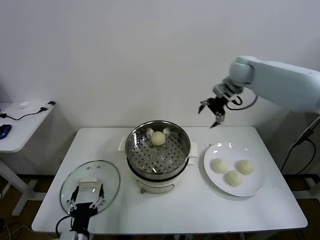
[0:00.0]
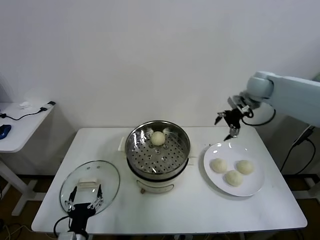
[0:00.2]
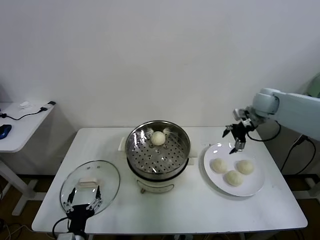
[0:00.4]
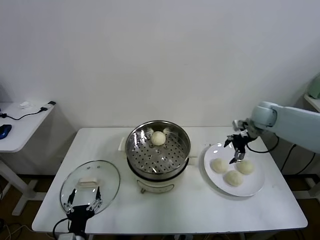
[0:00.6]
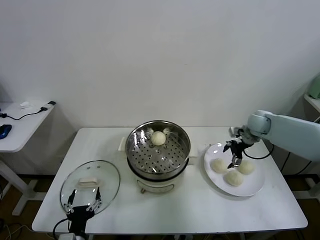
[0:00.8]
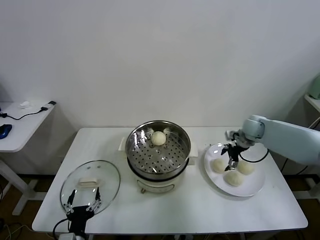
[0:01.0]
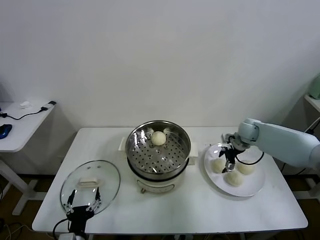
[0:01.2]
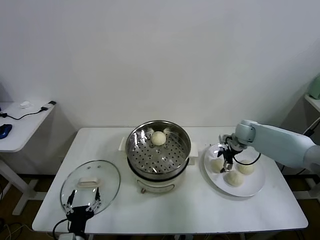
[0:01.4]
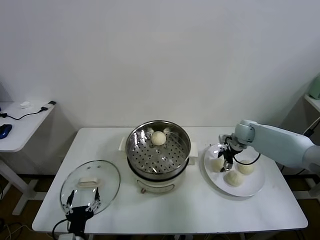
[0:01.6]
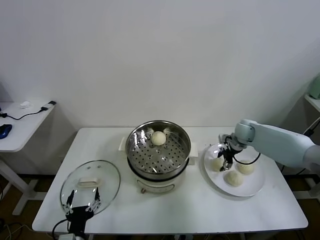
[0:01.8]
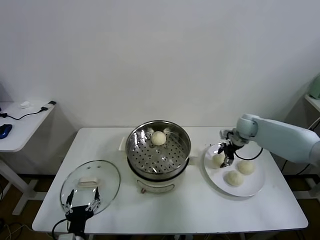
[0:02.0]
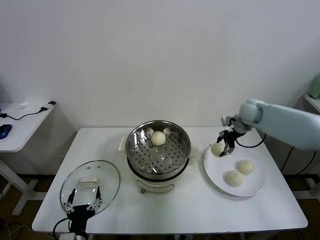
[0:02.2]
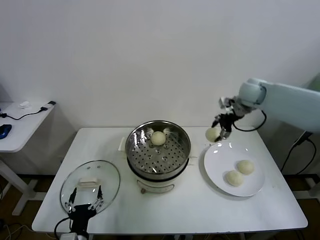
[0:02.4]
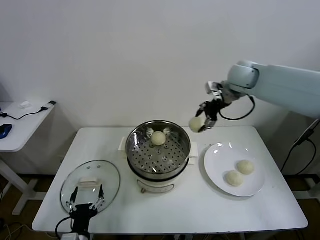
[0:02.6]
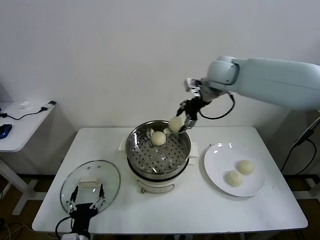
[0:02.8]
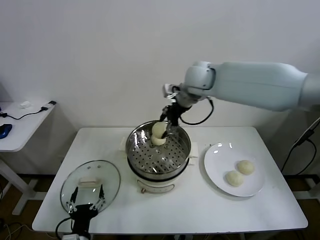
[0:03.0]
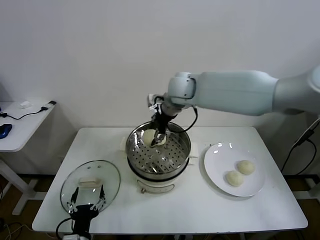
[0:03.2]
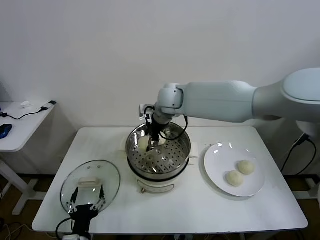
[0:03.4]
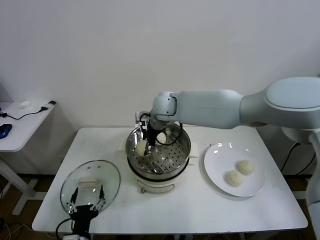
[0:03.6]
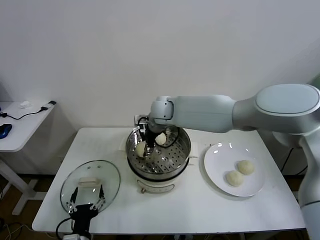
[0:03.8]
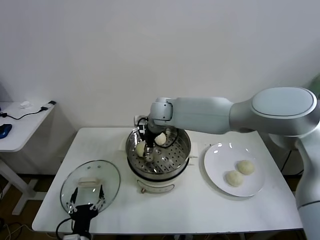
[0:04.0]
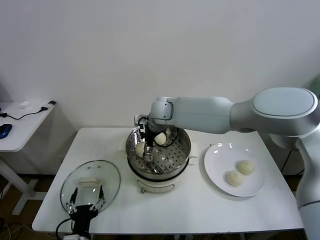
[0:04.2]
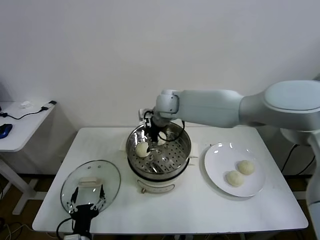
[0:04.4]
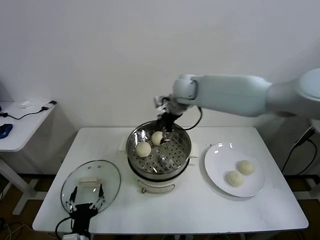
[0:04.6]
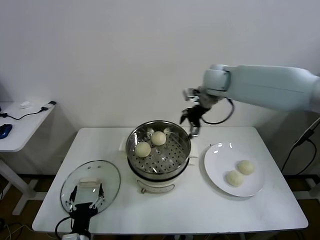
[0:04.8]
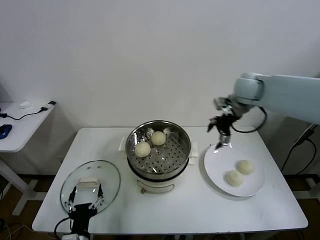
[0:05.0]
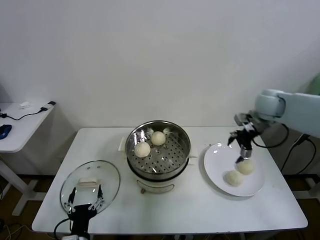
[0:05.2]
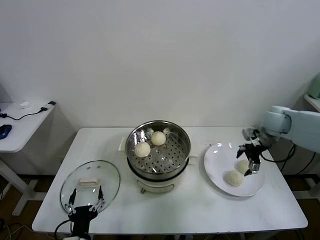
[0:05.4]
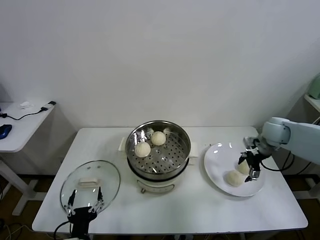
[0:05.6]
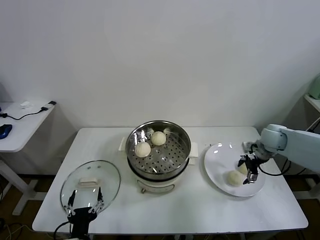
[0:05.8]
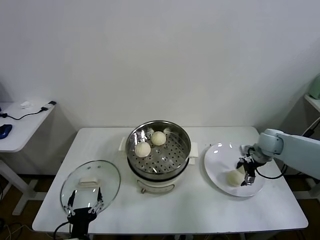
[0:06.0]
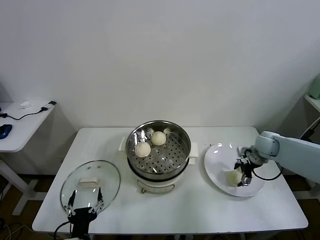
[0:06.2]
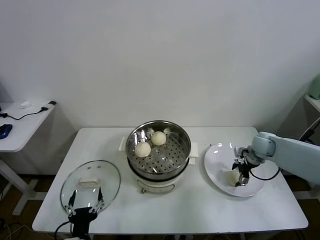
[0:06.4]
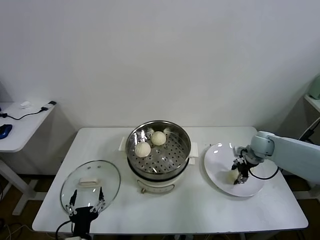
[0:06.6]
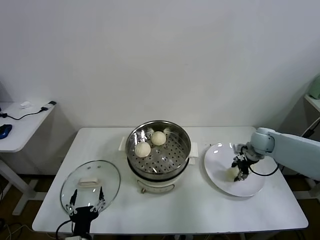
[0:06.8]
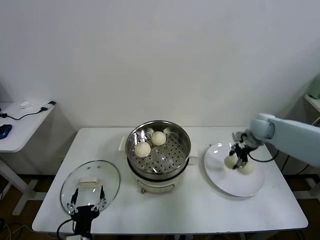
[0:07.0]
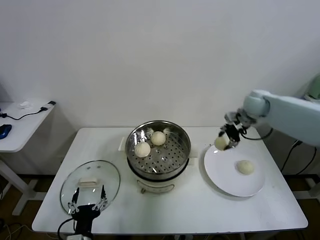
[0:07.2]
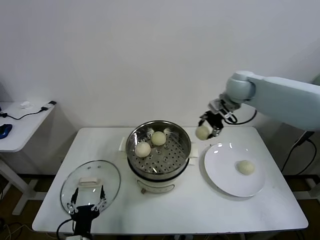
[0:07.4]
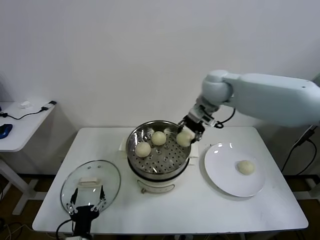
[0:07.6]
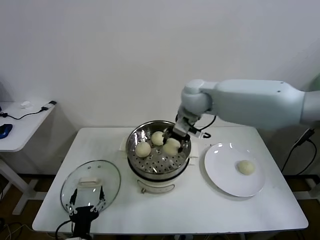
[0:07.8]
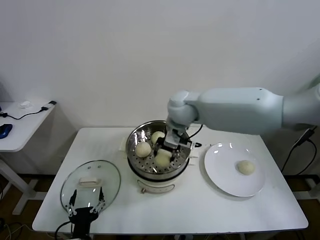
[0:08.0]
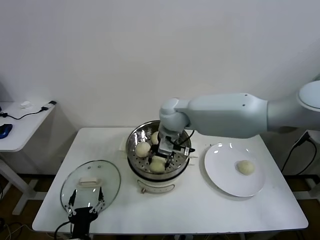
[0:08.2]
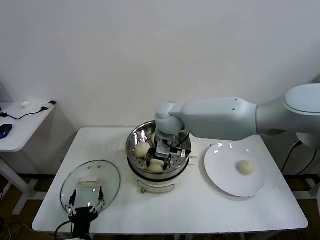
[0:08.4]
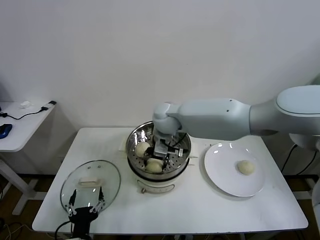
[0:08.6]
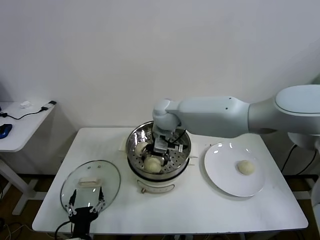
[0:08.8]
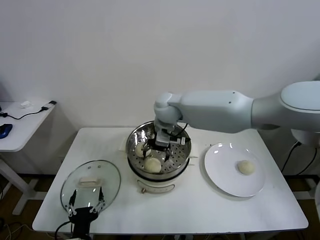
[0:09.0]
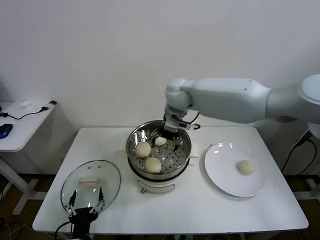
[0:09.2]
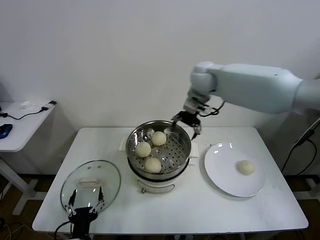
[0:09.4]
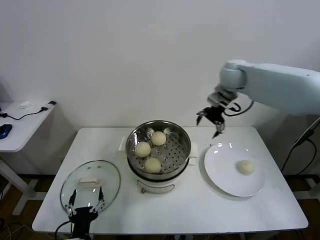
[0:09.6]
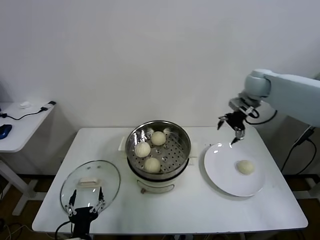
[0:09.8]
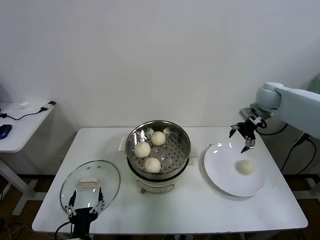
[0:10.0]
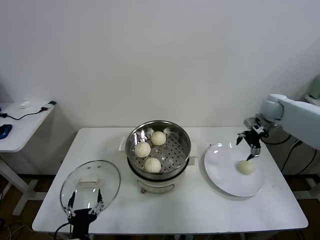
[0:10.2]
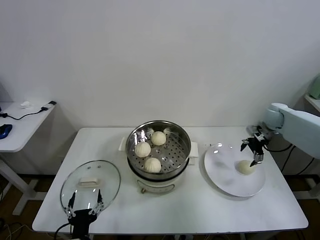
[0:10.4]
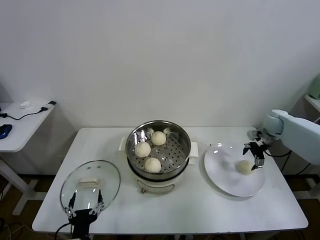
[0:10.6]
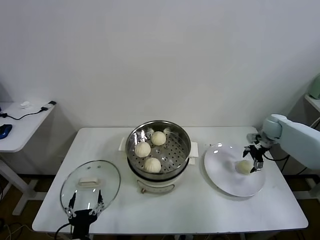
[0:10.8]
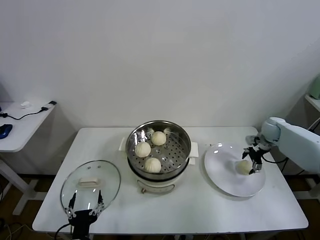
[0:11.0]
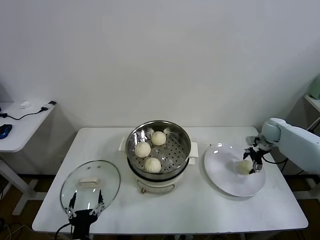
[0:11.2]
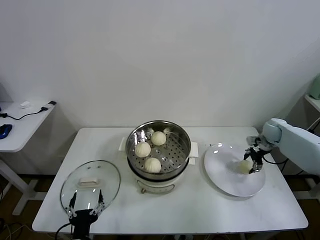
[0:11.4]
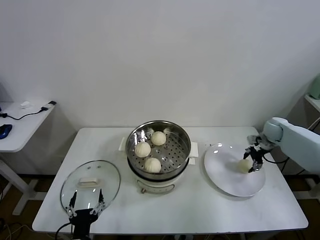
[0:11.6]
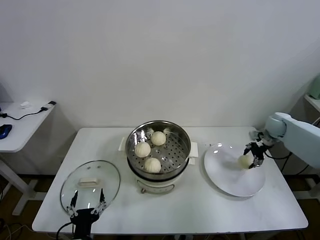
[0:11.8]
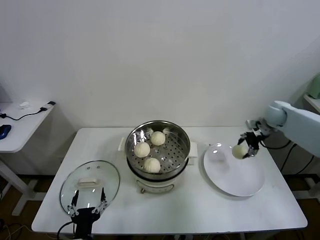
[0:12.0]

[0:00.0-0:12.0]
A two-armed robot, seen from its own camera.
Task of the whole recording: take steamed baozi put them in steamer.
Step, 0:00.0 to 0:01.6: Grasp the baozi in the plate with right gripper.
Step, 0:01.8 to 0:04.2: Place the baozi on the steamer with right gripper.
Step, 0:04.6 to 0:06.4: Grasp the baozi in the plate with right gripper.
Step, 0:06.8 to 0:08.8: Place the baozi on the steamer with right gripper.
Step, 0:09.0 to 0:11.2: Grasp the baozi in the plate with right gripper.
0:00.0 to 0:01.6: The right gripper travels downward by about 25 cm, and closes up.
0:01.6 to 0:03.0: The right gripper shifts some 35 cm to the left and upward.
0:03.0 to 0:04.4: The right gripper moves downward and to the left, roughly 10 cm, and opens its fingers.
0:04.4 to 0:06.0: The right gripper heads to the right and downward, covering some 40 cm.
0:06.0 to 0:07.6: The right gripper travels to the left and upward by approximately 35 cm, and closes up.
0:07.6 to 0:09.0: The right gripper shifts some 15 cm to the left and downward, and opens.
0:09.0 to 0:10.4: The right gripper travels to the right by about 40 cm.
0:10.4 to 0:12.0: The right gripper reaches approximately 5 cm downward, then returns, and closes.

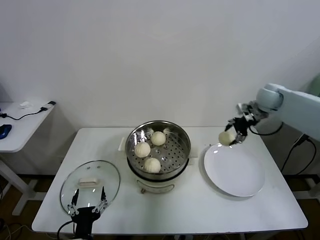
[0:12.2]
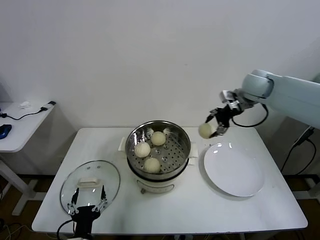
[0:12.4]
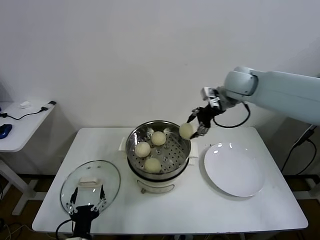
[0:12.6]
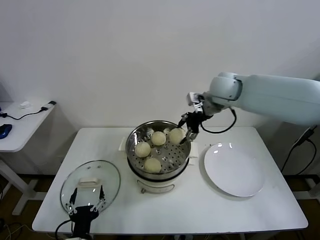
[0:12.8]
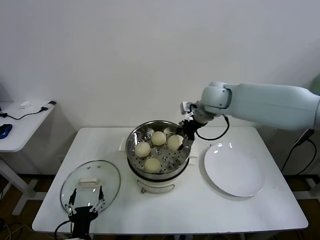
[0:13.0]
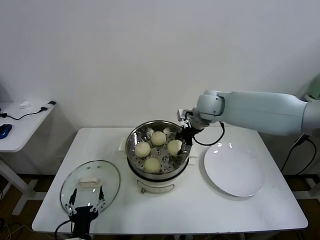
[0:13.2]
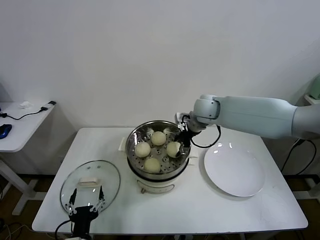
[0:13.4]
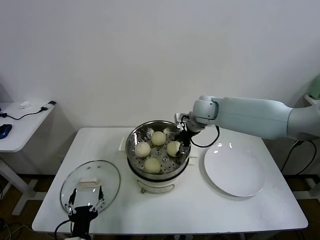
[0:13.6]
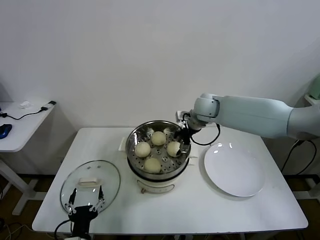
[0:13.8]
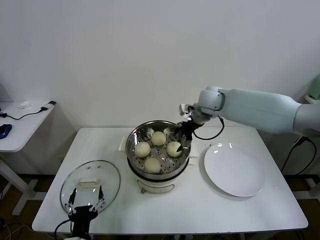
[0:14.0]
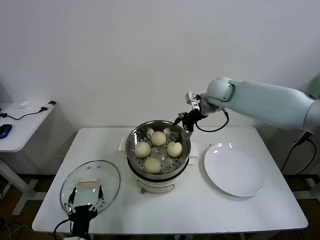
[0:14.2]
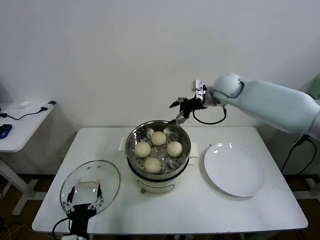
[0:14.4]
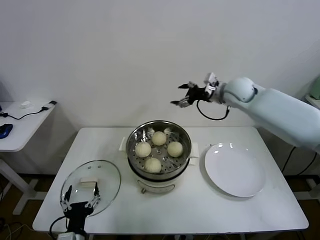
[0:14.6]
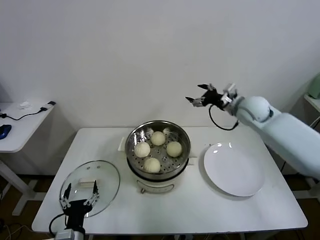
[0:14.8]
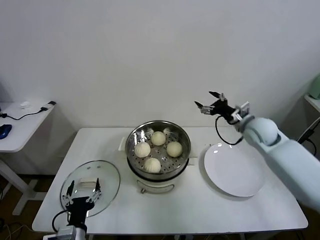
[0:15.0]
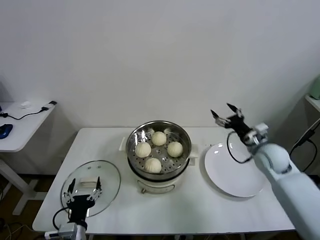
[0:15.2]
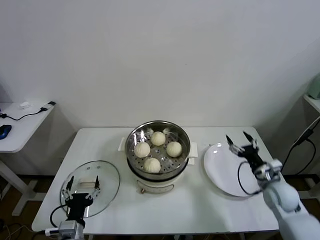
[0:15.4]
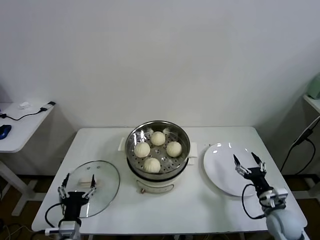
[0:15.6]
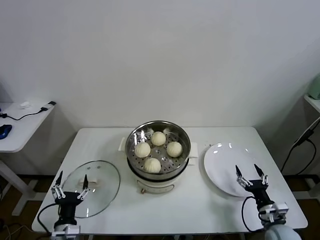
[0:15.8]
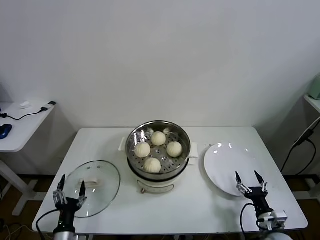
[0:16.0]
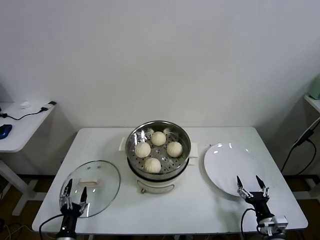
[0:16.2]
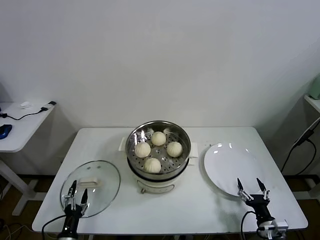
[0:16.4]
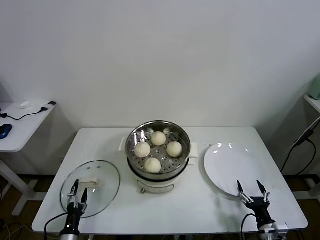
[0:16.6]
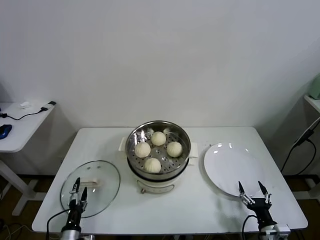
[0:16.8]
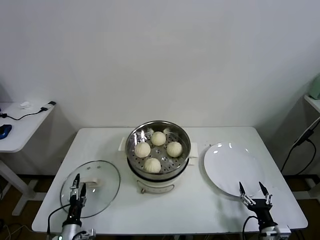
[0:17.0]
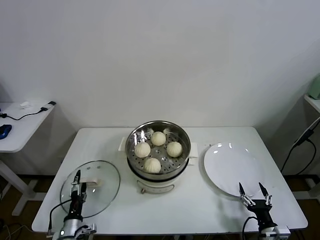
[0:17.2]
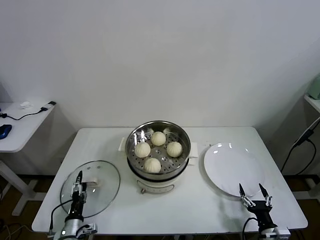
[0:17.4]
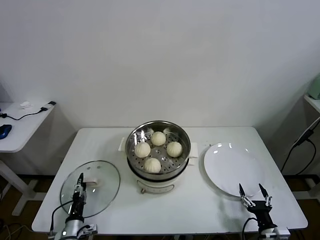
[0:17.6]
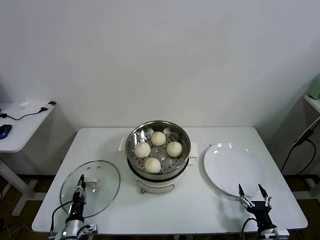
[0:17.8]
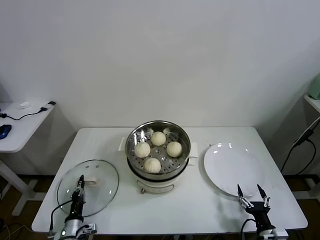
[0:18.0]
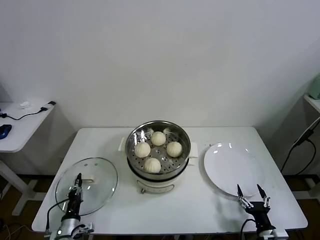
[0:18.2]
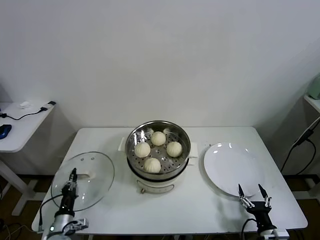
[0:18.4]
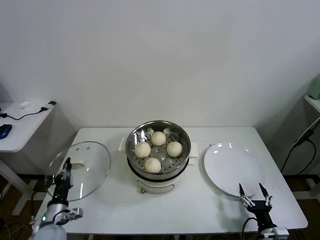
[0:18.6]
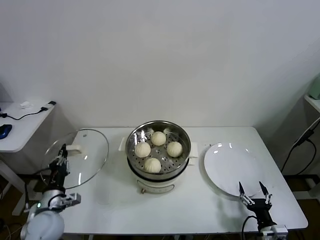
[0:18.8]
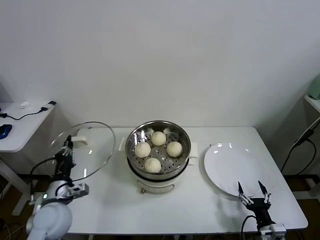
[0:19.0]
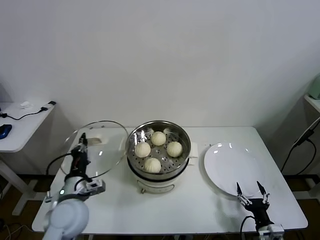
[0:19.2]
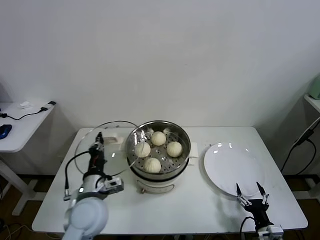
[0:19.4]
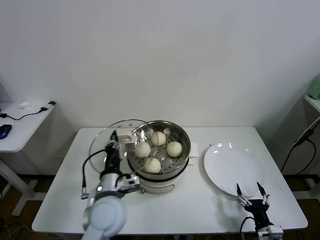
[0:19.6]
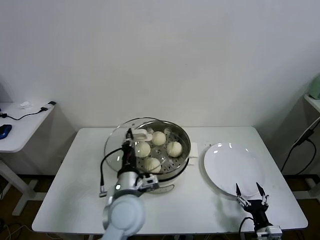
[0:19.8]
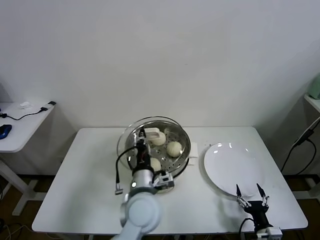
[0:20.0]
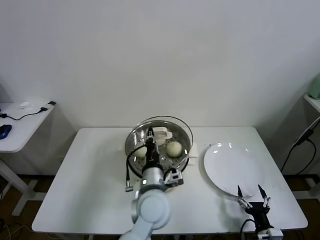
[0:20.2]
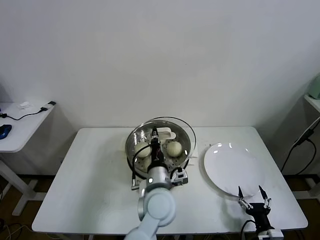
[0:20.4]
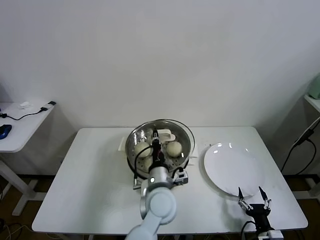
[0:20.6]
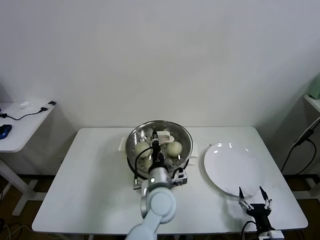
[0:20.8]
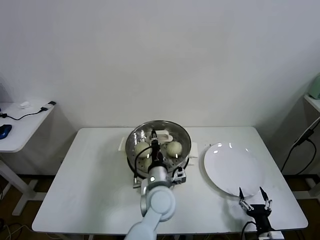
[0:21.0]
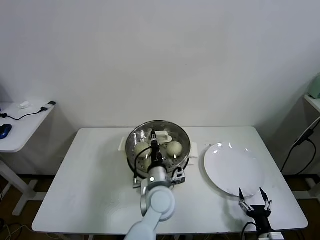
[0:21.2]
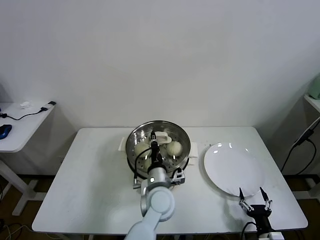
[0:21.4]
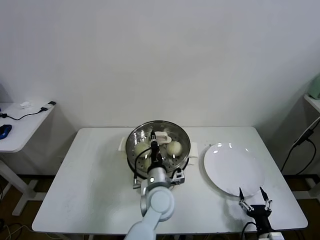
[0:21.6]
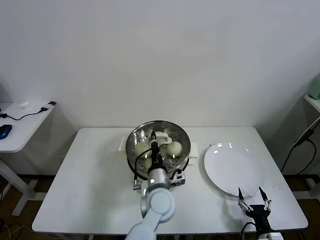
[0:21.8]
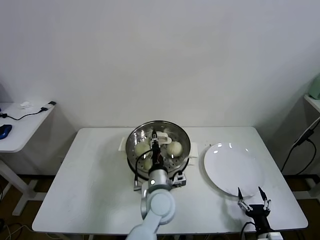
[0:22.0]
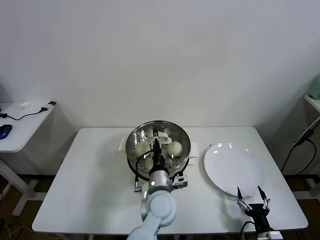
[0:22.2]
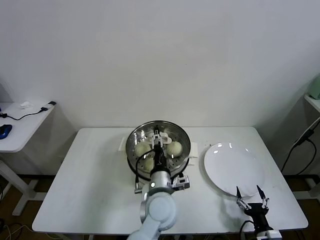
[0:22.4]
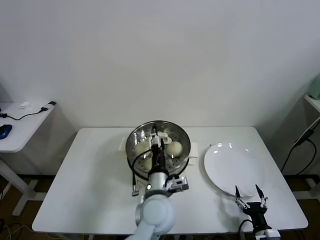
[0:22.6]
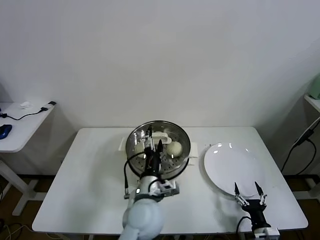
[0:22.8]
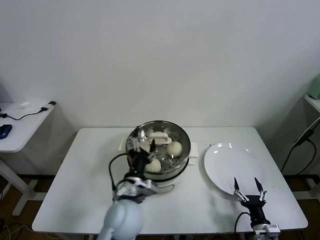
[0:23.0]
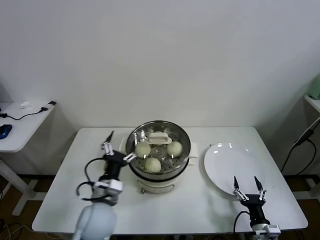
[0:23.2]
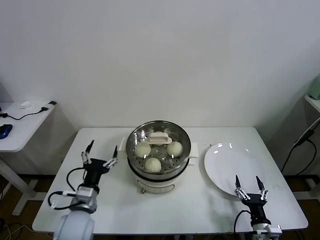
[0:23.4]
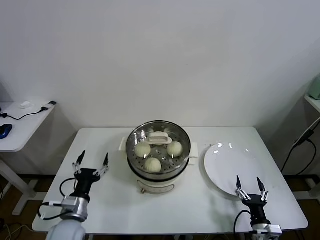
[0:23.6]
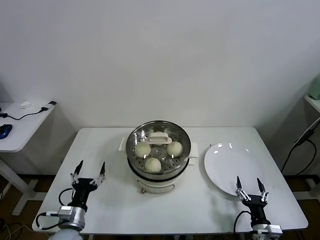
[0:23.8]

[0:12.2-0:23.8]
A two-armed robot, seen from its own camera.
Task of the whole recording: take steamed baozi put them in steamer.
Step, 0:12.2 to 0:13.8: Place the baozi on the steamer with right gripper.
Step, 0:14.0 to 0:18.0: Grasp the pot lid with left gripper.
Step, 0:18.2 to 0:22.2: Place the pot lid on the steamer with left gripper.
0:12.2 to 0:13.6: The right gripper moves to the left, about 20 cm.
0:13.6 to 0:15.0: The right gripper travels to the right and backward by about 20 cm, and opens.
0:15.0 to 0:16.6: The left gripper shifts some 15 cm downward and to the left, while the right gripper is displaced backward and downward by about 40 cm.
0:16.6 to 0:18.0: The left gripper shifts roughly 5 cm forward, and closes.
0:18.0 to 0:19.4: The left gripper moves upward and to the right, roughly 25 cm.
0:19.4 to 0:21.0: The left gripper heads to the right, covering roughly 20 cm.
0:21.0 to 0:22.4: The left gripper opens.
0:22.4 to 0:23.8: The left gripper moves to the left, roughly 30 cm.
